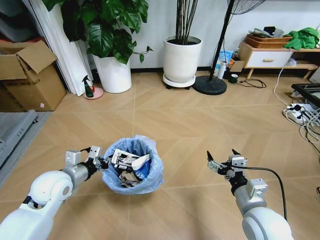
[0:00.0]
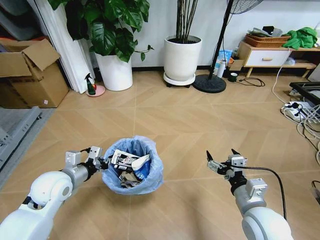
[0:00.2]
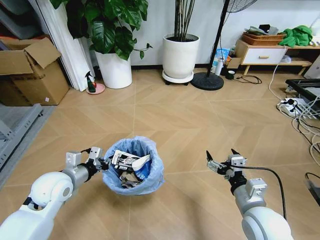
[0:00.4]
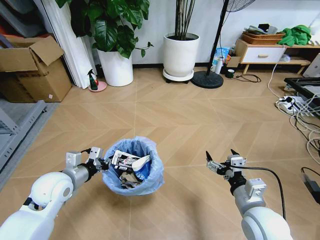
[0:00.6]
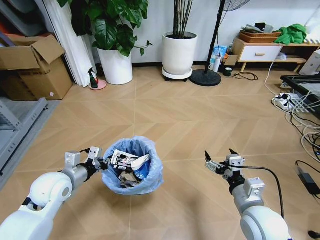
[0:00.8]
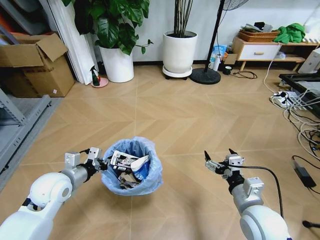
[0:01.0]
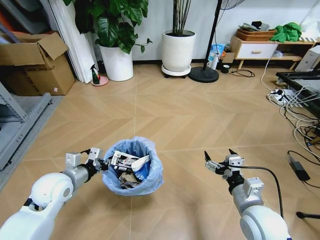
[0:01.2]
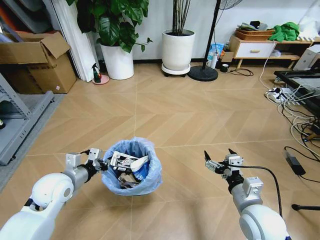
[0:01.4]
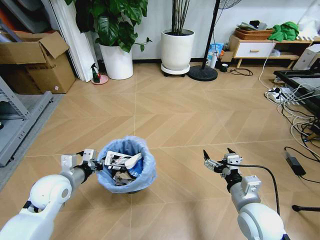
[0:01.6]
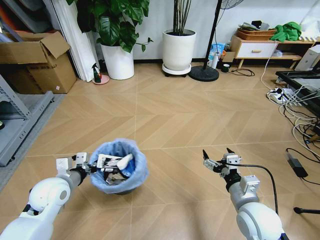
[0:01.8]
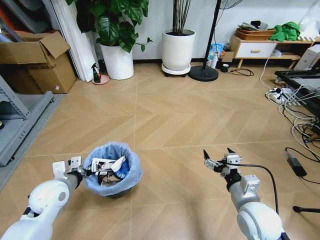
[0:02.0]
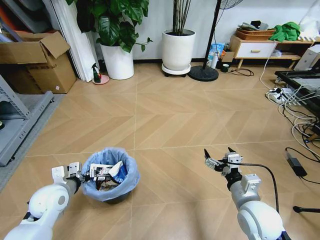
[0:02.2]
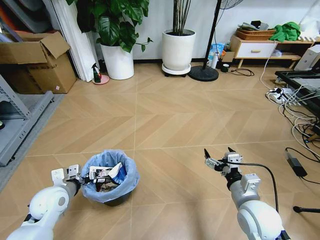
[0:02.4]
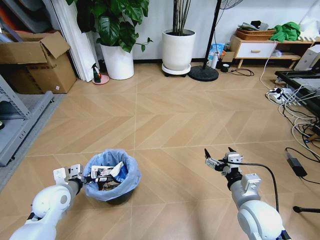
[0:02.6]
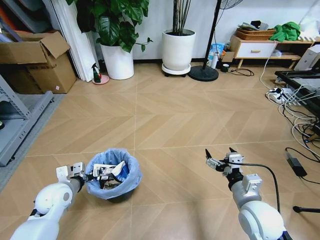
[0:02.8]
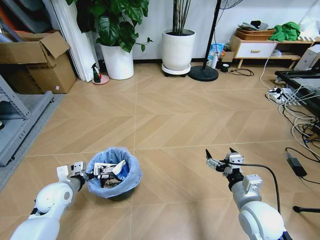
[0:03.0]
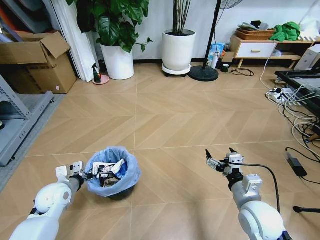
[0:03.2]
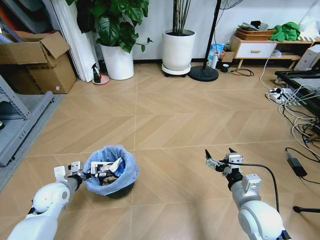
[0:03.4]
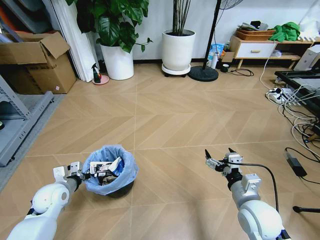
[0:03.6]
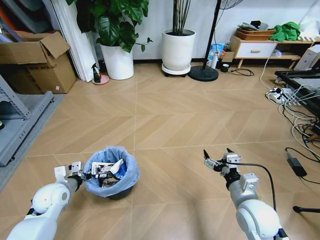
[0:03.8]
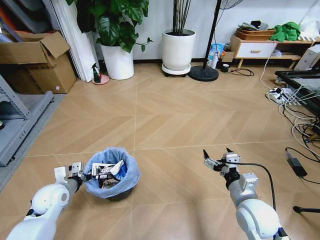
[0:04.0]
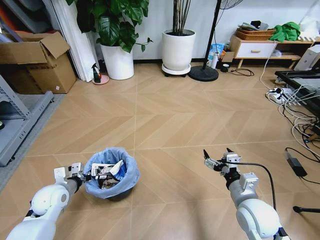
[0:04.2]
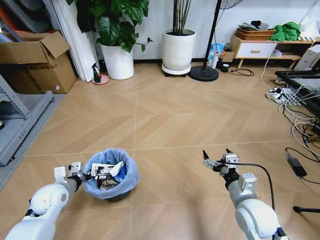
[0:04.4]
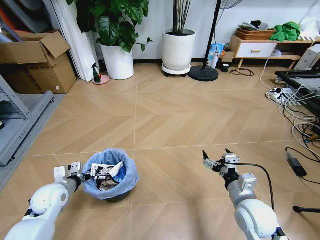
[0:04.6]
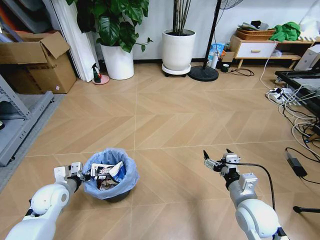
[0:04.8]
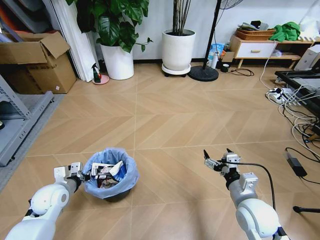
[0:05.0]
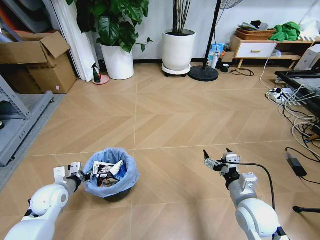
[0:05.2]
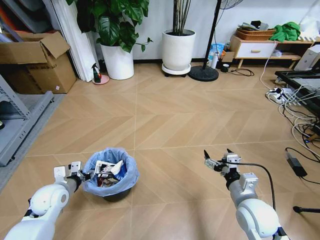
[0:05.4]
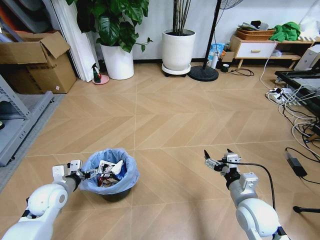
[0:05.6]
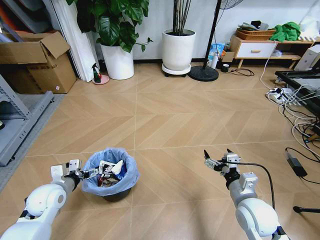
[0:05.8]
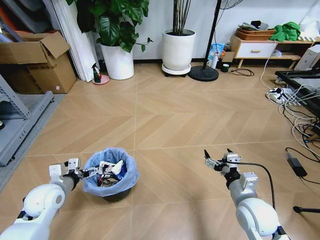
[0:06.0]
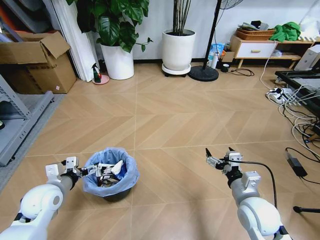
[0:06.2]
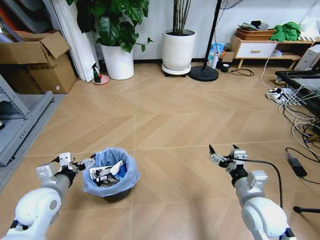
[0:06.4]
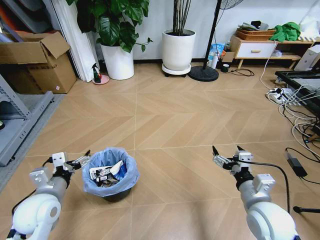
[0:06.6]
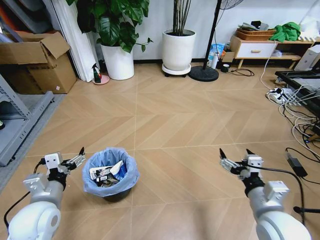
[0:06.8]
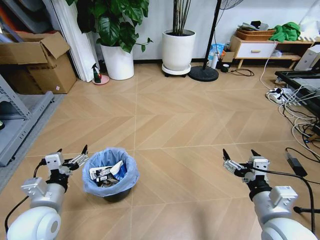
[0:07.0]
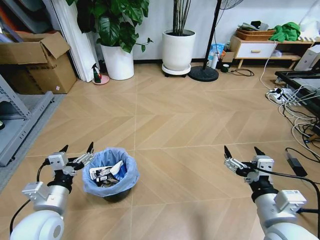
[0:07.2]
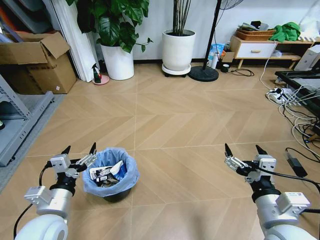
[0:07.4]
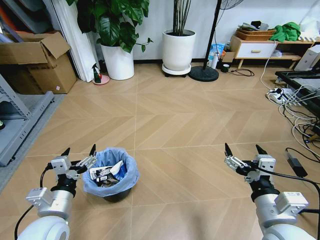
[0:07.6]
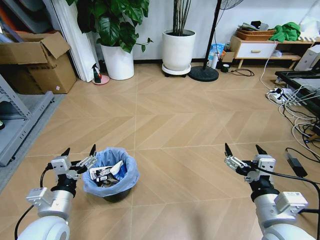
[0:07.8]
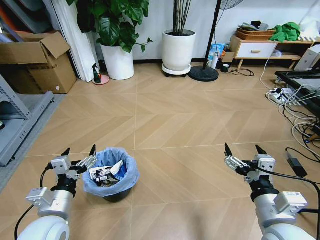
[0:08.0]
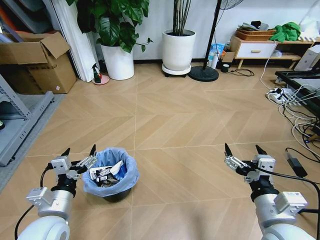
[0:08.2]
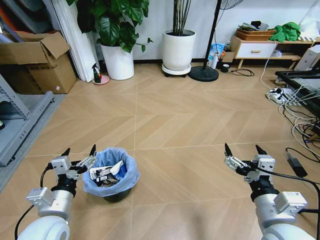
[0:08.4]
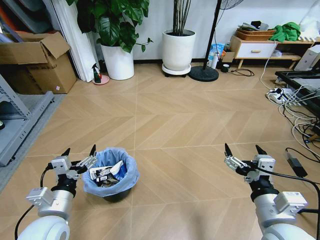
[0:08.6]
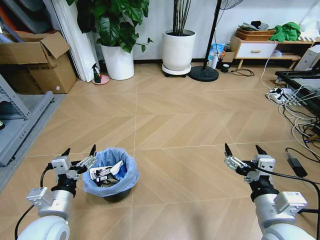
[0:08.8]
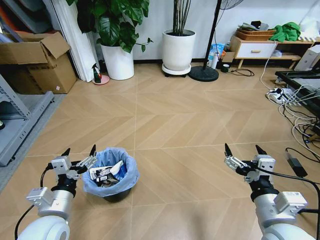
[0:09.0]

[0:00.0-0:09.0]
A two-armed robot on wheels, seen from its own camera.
Task of the whole recording: Pick up the trash bin and place the garbage on the floor into it.
0:01.6 to 0:03.0: The left gripper goes approximately 5 cm downward.
0:03.0 to 0:04.4: The grippers stay close to where they were, moving slightly.
0:04.4 to 0:06.0: The left gripper opens its fingers.
0:06.0 to 0:07.6: The left gripper travels backward and to the right by approximately 15 cm. Meanwhile the right gripper is displaced upward and backward by some 10 cm.
0:07.6 to 0:09.0: Both grippers stay put.

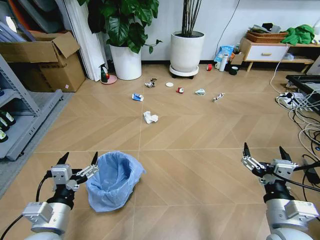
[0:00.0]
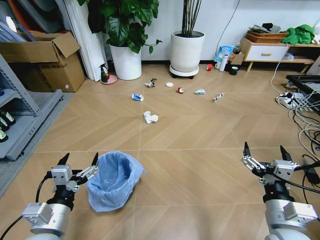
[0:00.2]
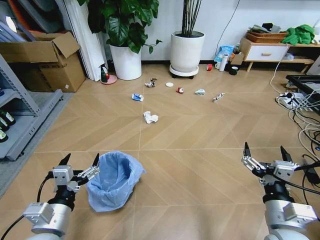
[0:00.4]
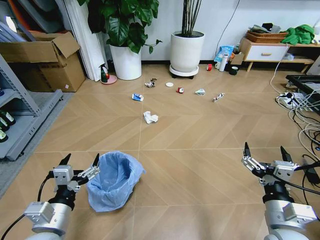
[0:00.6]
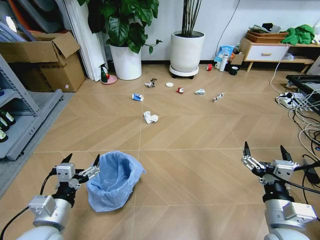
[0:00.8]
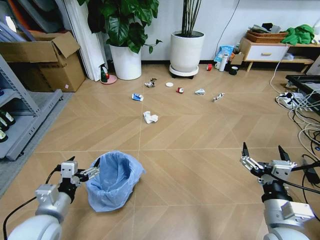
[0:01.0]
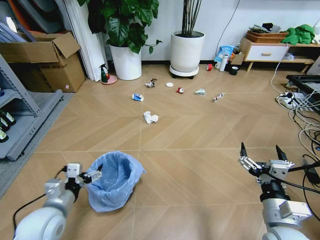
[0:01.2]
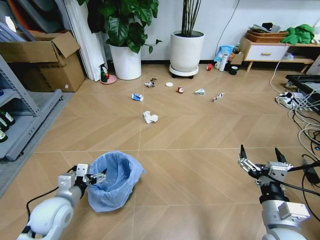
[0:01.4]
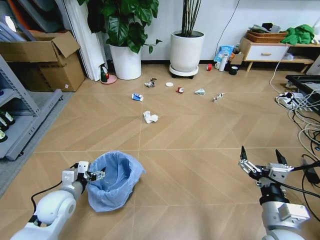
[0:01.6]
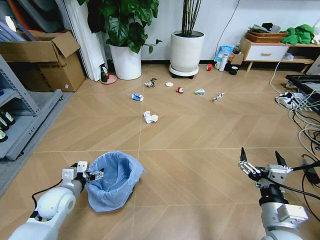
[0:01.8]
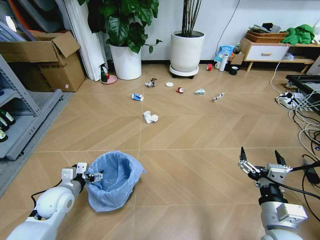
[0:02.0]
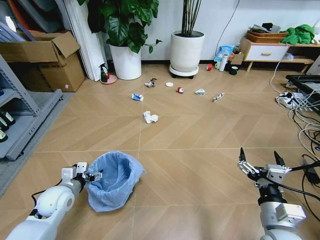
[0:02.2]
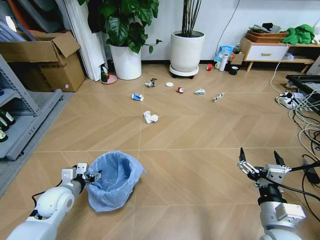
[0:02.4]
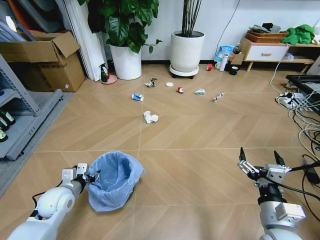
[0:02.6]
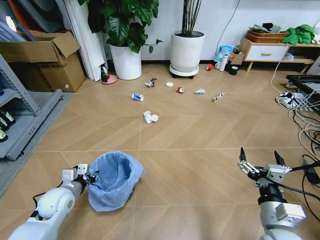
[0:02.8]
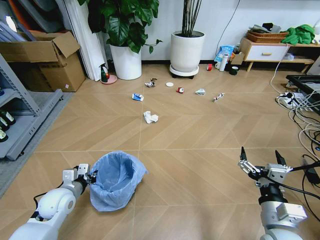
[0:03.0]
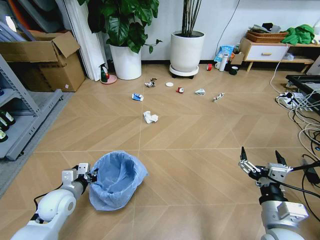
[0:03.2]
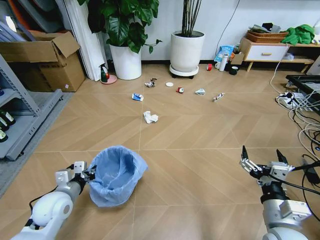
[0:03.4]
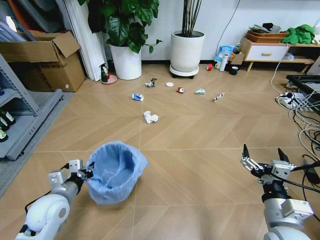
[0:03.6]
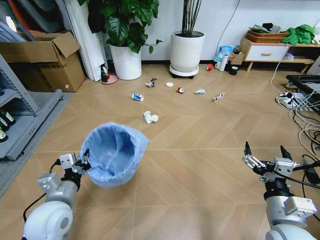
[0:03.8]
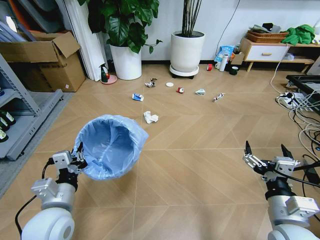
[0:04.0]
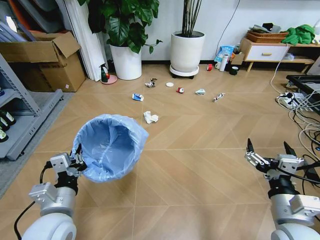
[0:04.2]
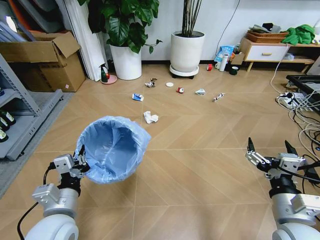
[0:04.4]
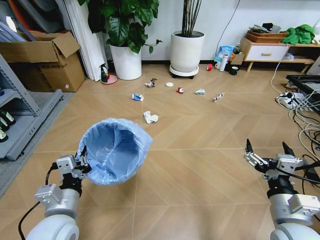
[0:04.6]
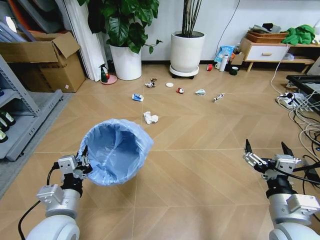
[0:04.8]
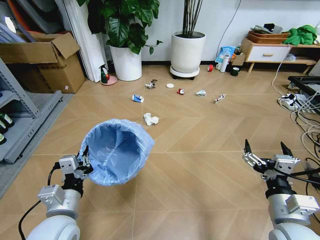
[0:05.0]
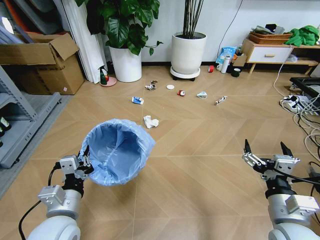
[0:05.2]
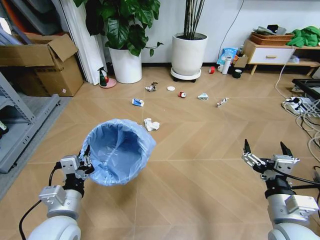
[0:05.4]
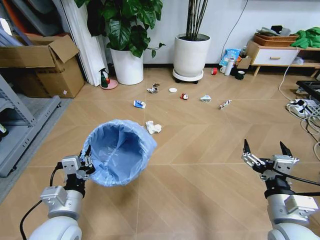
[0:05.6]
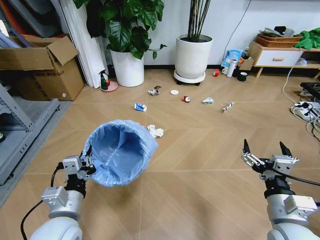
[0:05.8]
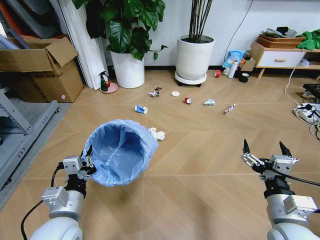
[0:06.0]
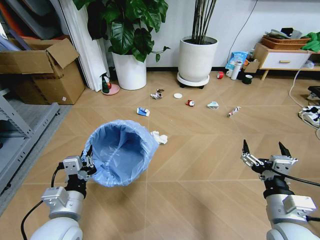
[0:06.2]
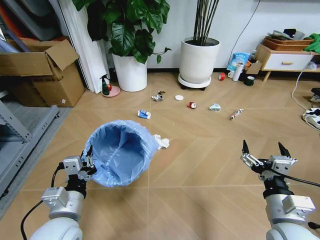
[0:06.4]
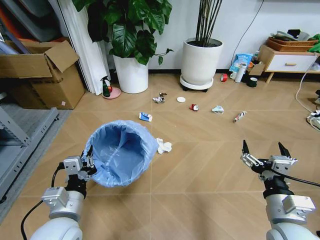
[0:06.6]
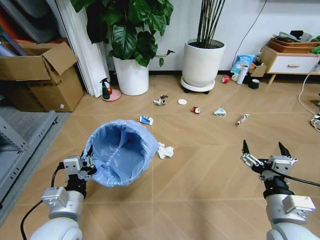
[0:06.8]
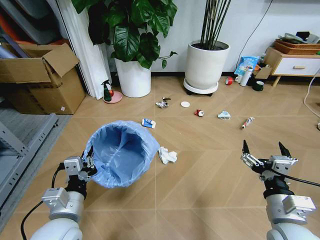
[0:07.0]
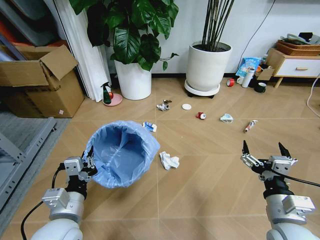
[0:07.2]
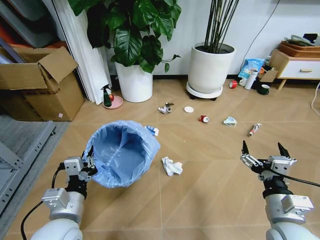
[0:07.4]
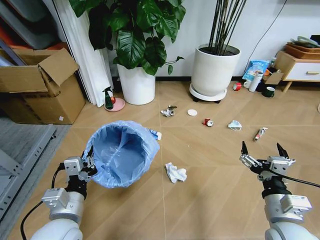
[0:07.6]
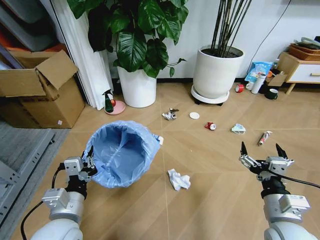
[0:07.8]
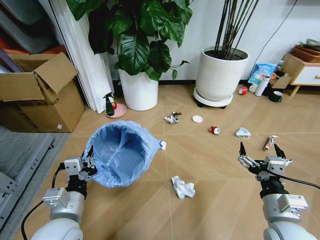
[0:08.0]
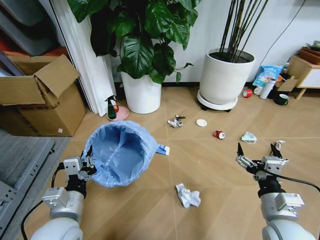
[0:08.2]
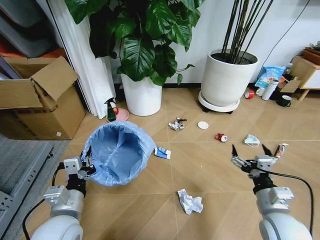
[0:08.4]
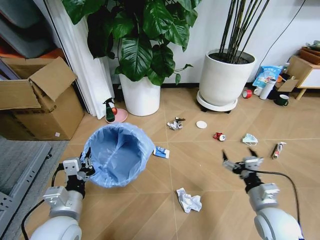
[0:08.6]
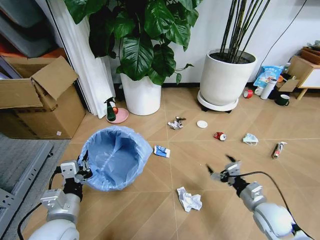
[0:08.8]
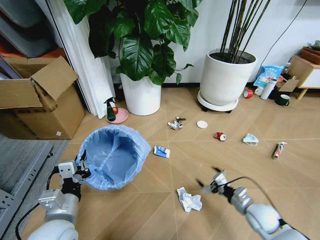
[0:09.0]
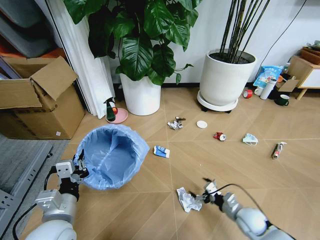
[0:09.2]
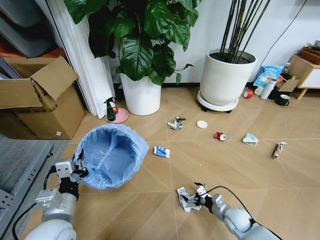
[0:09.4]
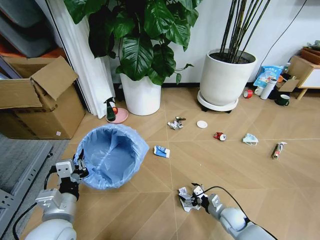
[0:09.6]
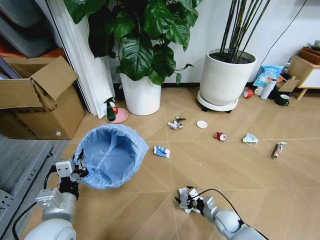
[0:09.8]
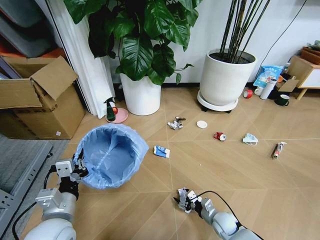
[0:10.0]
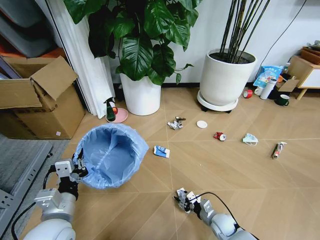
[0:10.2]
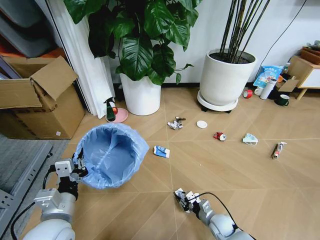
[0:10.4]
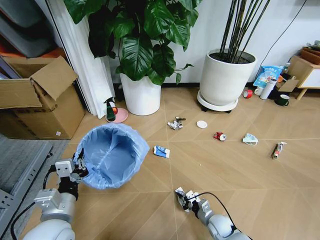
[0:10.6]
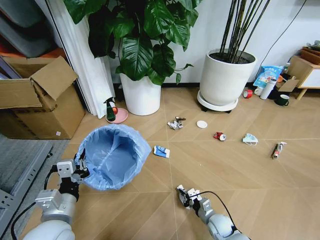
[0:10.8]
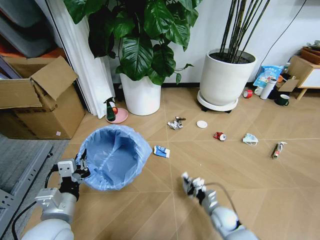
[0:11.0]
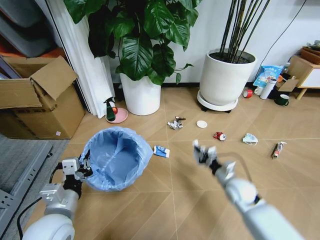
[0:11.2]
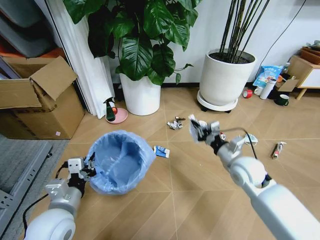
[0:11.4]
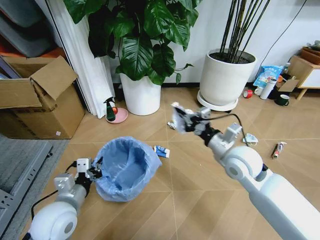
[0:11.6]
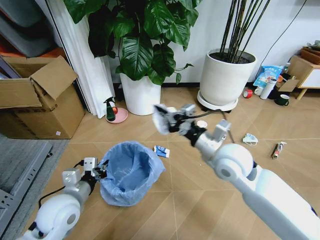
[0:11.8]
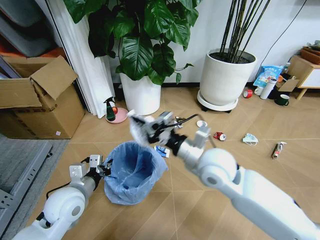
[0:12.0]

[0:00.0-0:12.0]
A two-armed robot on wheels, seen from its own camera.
Task of the whole recording: Pick up the trash bin and place the garbage on the floor into it.
0:01.6 to 0:03.0: The left gripper closes.
0:03.0 to 0:04.4: The left gripper travels backward, upward and to the right by roughly 20 cm.
0:07.6 to 0:09.0: The right gripper is displaced downward and forward by roughly 20 cm.
0:09.0 to 0:10.4: The right gripper moves downward and to the left, roughly 15 cm, and closes up.
0:10.4 to 0:12.0: The left gripper moves forward, some 10 cm. Meanwhile the right gripper moves upward, approximately 40 cm.

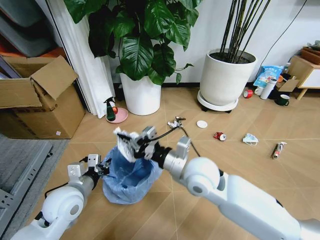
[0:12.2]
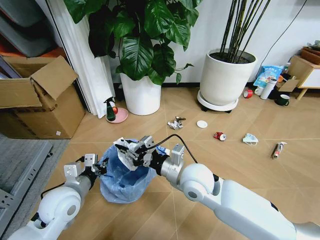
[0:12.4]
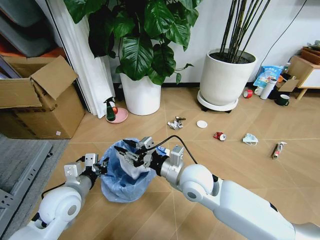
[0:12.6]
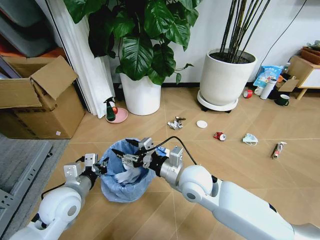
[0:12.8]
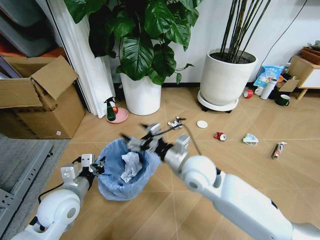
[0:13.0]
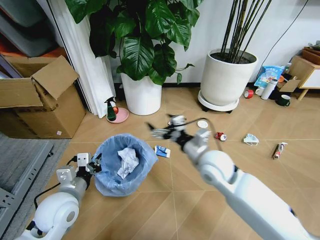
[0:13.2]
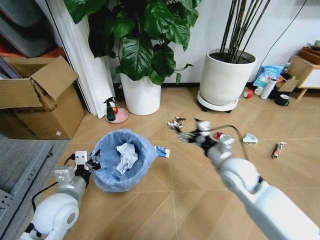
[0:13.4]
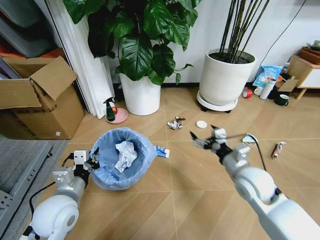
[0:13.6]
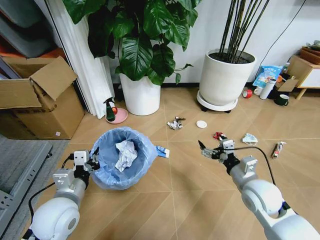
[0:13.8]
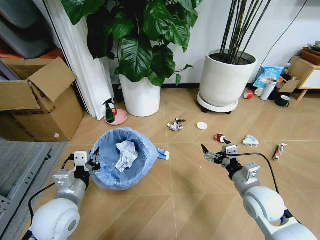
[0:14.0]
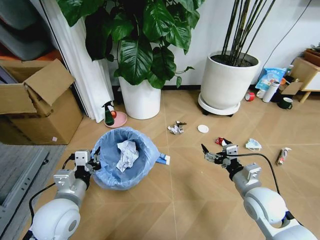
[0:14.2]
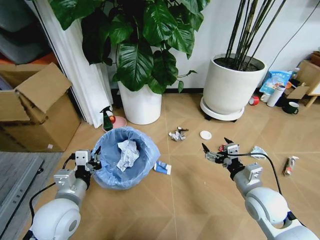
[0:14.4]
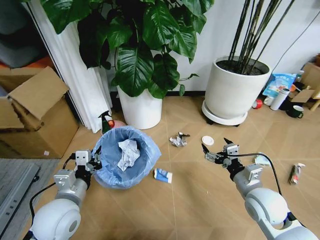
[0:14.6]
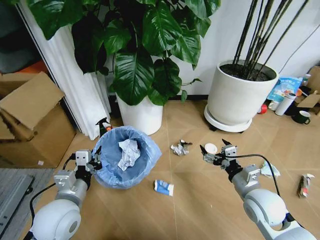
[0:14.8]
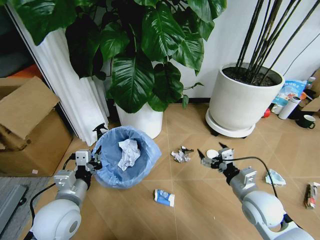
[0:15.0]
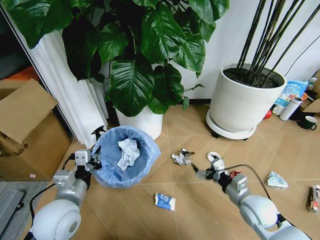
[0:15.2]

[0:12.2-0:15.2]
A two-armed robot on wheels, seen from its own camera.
Task of the whole recording: Pick up the trash bin and place the garbage on the floor into it.
0:12.2 to 0:13.8: The right gripper heads to the right and downward, covering roughly 20 cm, and opens.
0:13.8 to 0:15.2: The right gripper is displaced downward by some 5 cm.
